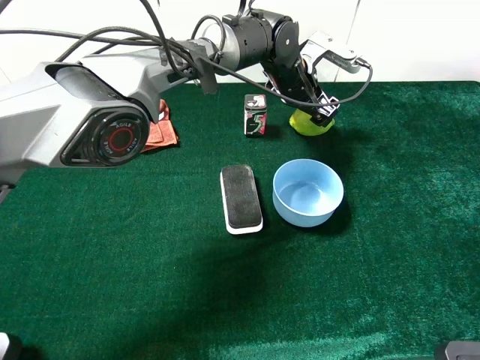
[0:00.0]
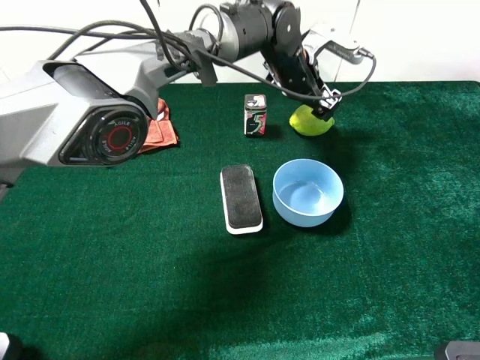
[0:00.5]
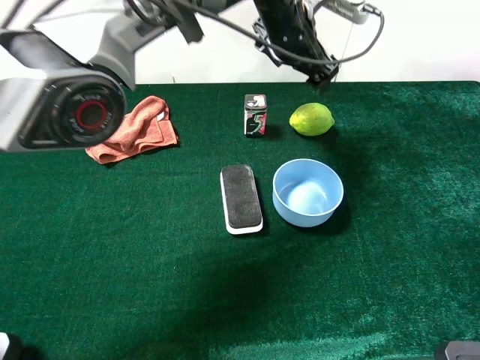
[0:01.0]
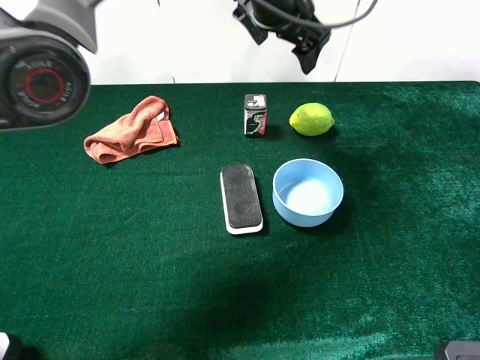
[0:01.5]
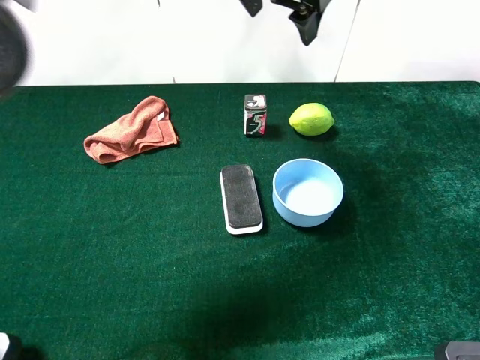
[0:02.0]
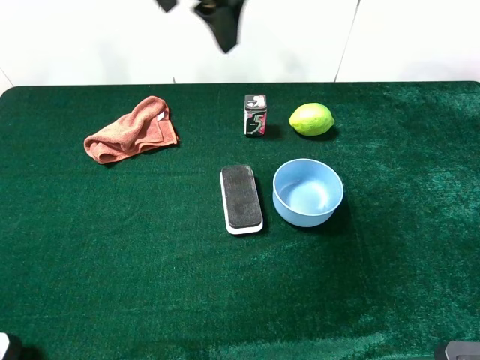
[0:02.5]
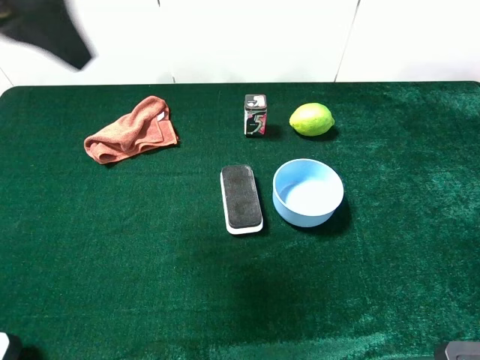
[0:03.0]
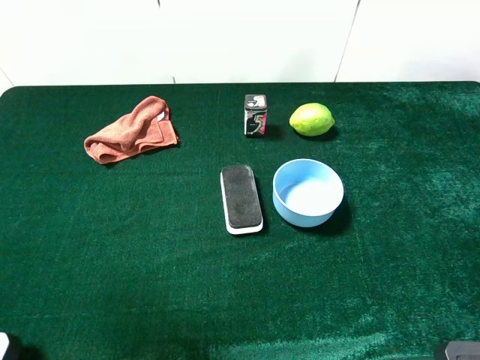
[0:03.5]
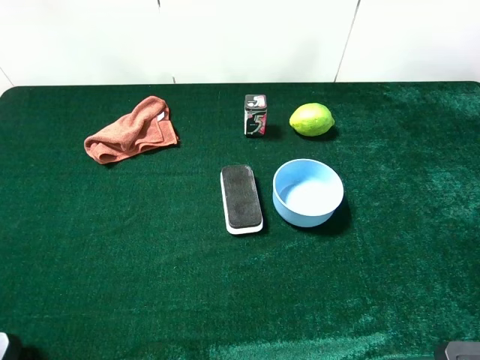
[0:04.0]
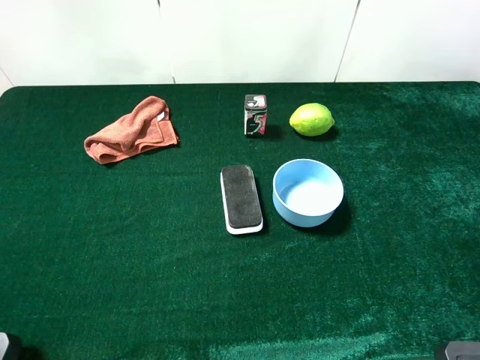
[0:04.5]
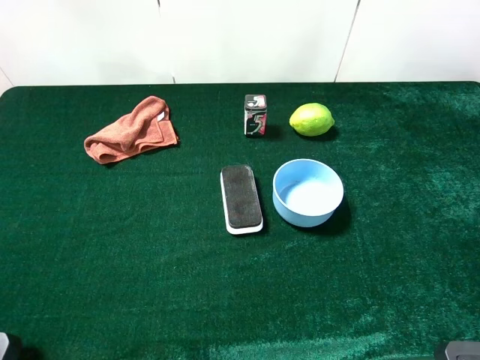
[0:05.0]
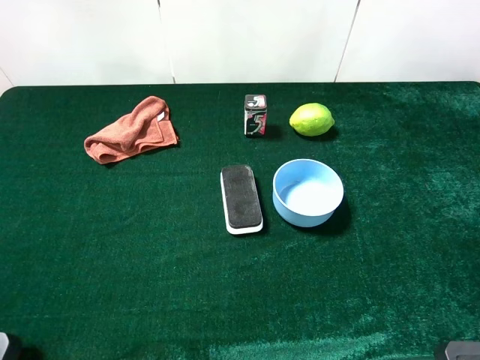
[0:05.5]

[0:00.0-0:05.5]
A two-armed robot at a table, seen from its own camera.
Task of the whole recording: the gripper move the object.
0:00.0 to 0:02.0: The left gripper shifts about 20 cm upward.
0:02.0 to 0:03.5: The left gripper moves backward and to the left, some 40 cm.
